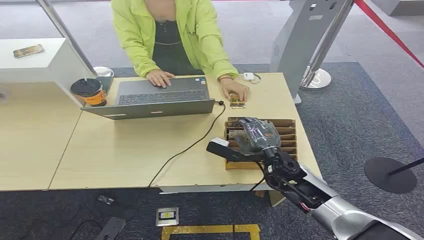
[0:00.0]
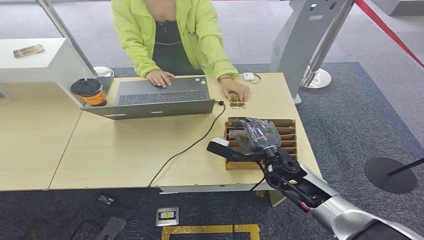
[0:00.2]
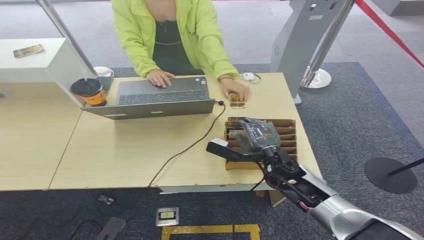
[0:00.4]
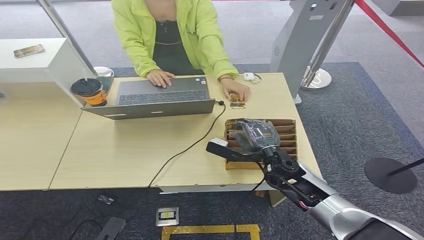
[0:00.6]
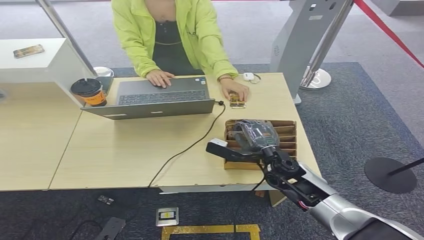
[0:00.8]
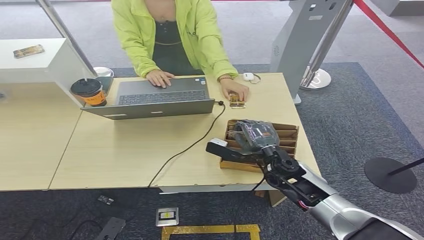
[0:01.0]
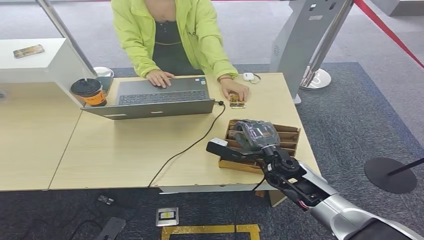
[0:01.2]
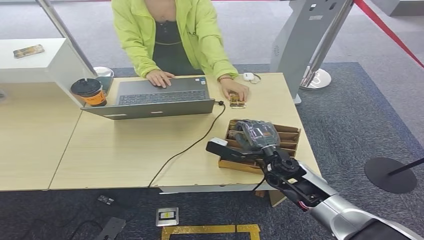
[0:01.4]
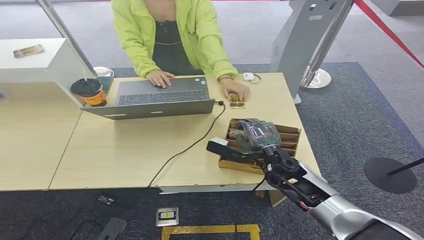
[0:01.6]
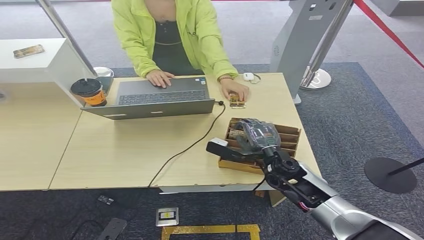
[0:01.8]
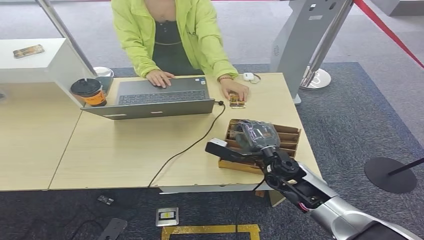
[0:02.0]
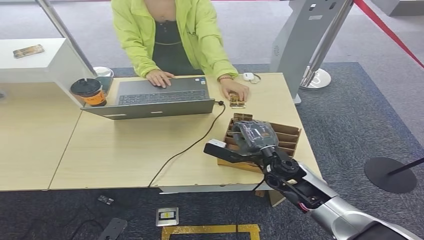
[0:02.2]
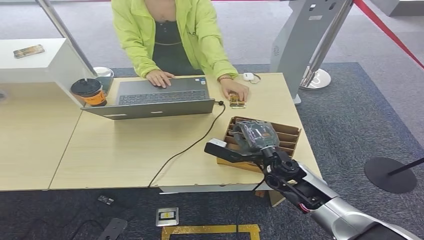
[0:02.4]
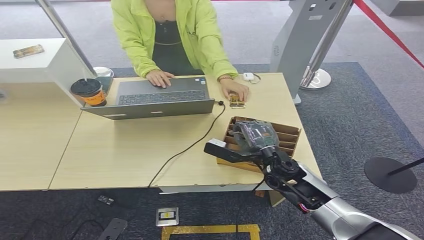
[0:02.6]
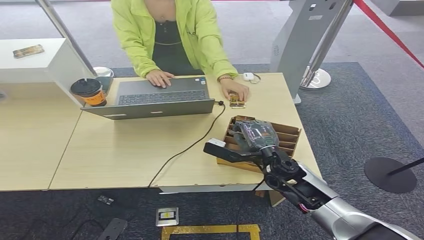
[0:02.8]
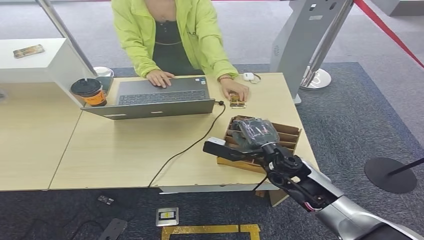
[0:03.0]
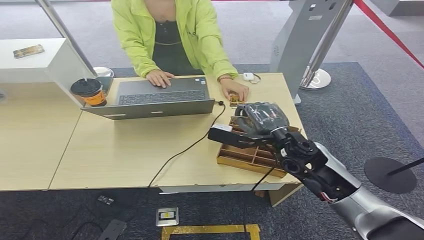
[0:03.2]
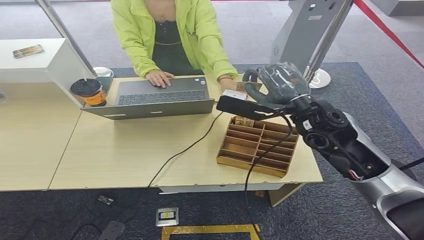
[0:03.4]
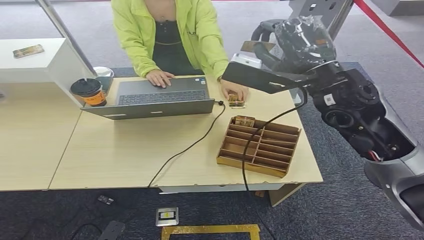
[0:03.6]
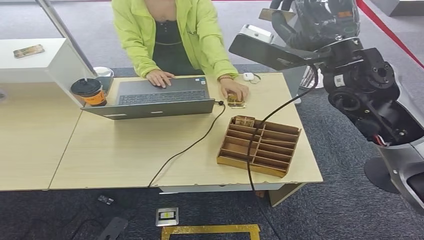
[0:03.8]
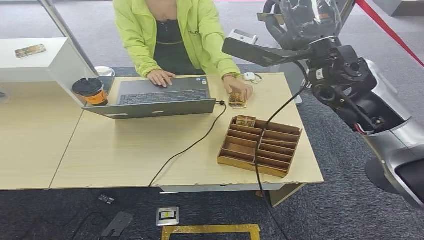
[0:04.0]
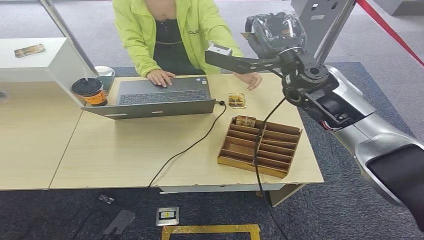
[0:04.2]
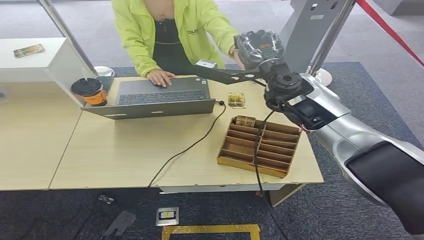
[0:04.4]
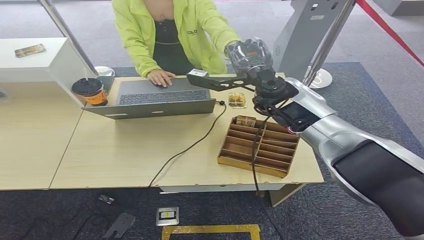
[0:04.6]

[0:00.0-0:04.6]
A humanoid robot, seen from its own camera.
Step, 0:00.0 to 0:03.2: Pick up the room card from the card holder.
Step, 0:03.4 to 0:04.6: Hand the room card to the target.
0:01.6 to 0:03.0: There are only small adjustments of the hands.
0:03.0 to 0:04.6: The right hand is displaced upward and forward by about 20 cm.
